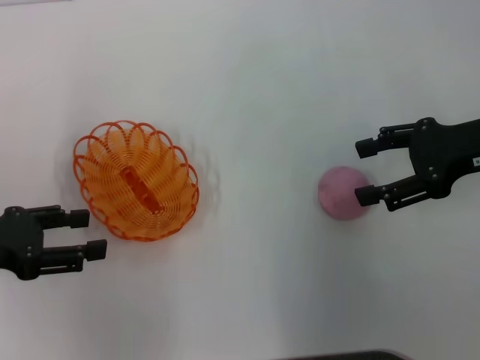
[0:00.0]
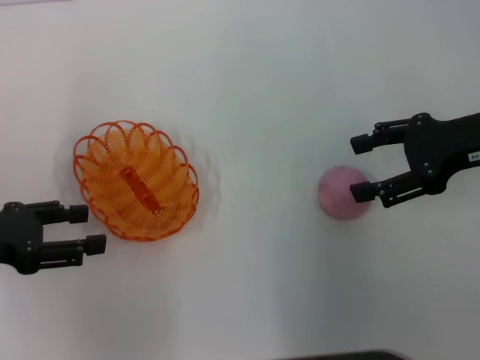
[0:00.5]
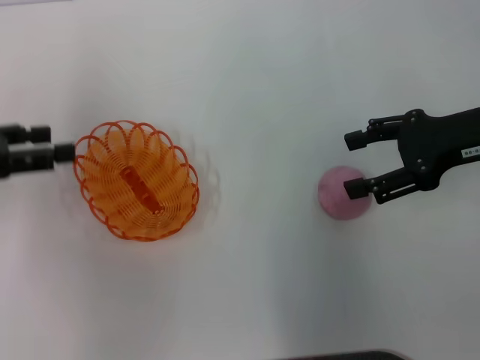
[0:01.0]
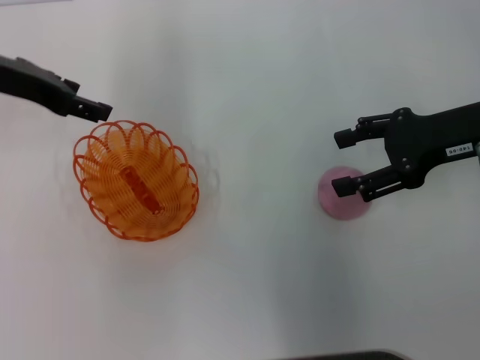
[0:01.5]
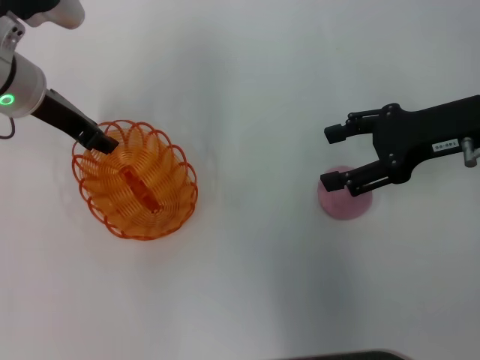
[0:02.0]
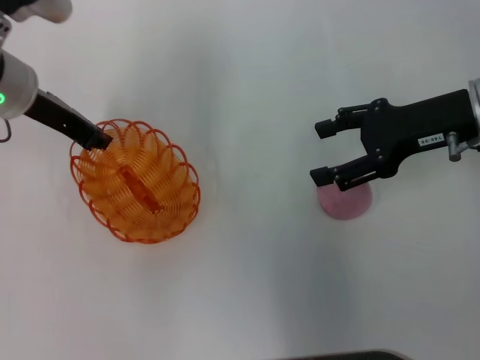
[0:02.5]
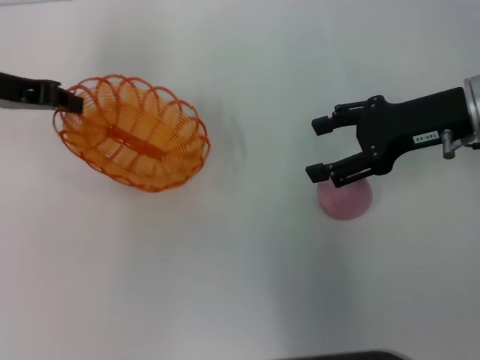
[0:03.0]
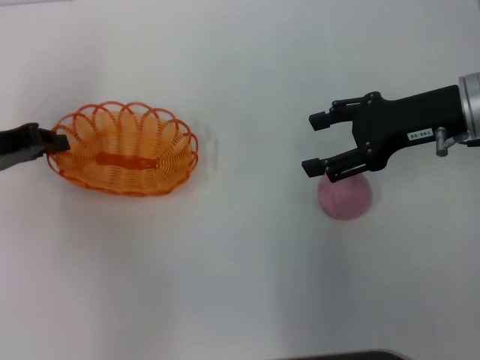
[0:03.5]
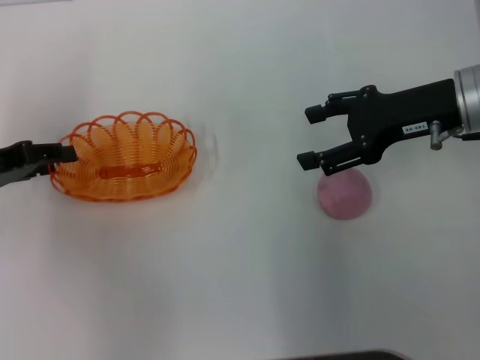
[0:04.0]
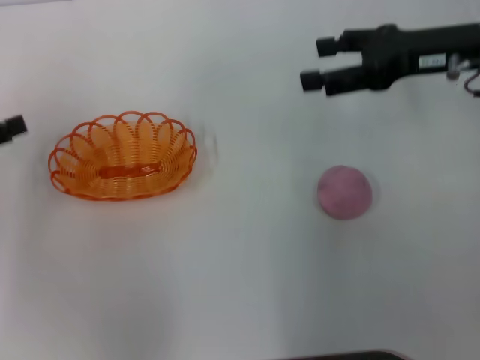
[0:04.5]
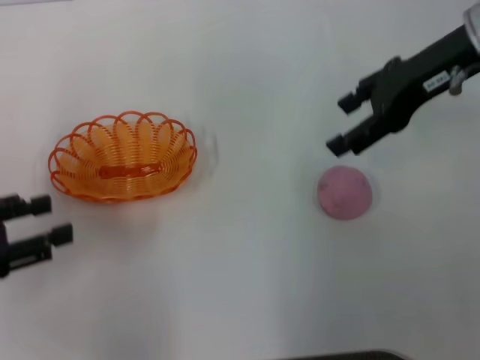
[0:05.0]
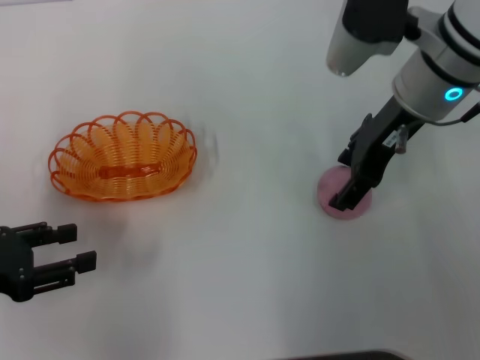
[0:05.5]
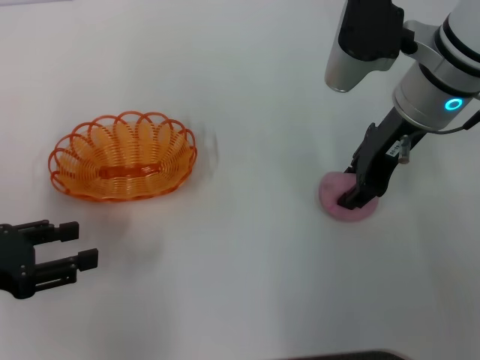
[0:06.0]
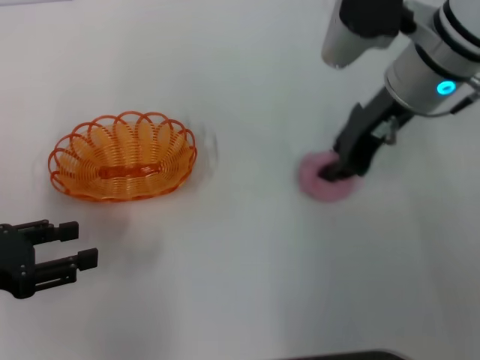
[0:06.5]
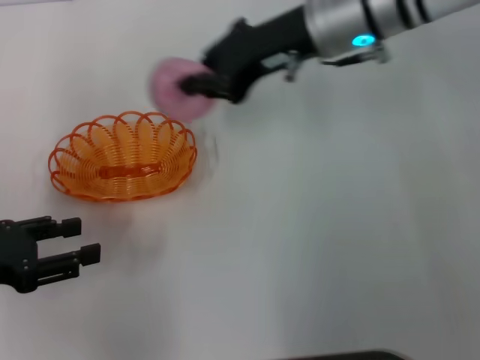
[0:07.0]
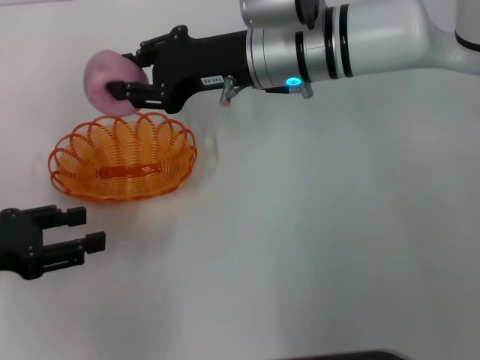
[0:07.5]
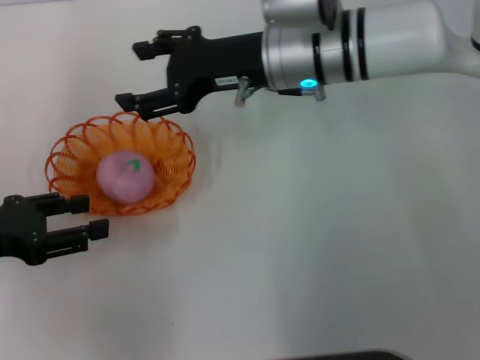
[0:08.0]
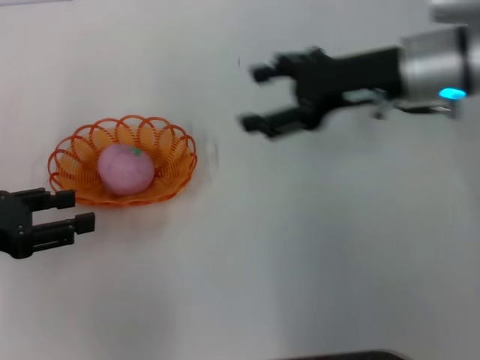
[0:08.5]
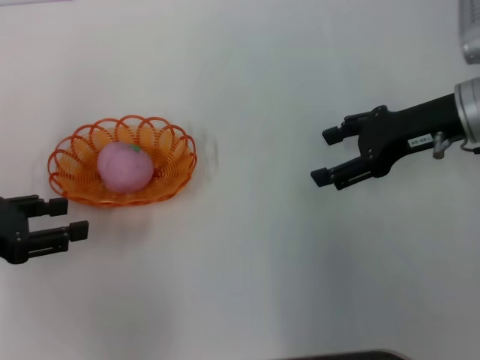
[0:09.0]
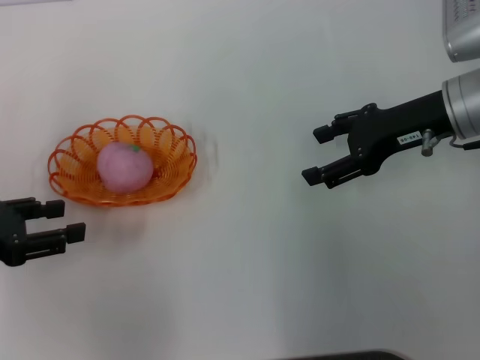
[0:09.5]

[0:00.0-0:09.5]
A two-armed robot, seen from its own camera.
Step, 0:00.0 to 0:02.5: Pick up the basket with the left gripper.
Step, 0:03.0 to 0:04.0: Place the basket in the center of view with the left gripper.
Step, 0:04.5 to 0:06.5: Pick up the peach with the right gripper.
Step, 0:07.0 to 0:08.0: Place the peach into the basket with the right gripper.
0:00.0 to 0:02.0: The left gripper goes roughly 20 cm forward and to the right.
0:02.0 to 0:04.0: The left gripper moves to the left and backward, roughly 15 cm, and closes.
0:04.0 to 0:05.5: The left gripper heads backward, covering some 10 cm, and opens up, while the right gripper travels to the left by some 5 cm.
0:05.5 to 0:07.5: The right gripper is displaced to the left by some 10 cm, and closes its fingers.
0:07.5 to 0:09.5: The right gripper travels to the right by some 15 cm, and opens up.
